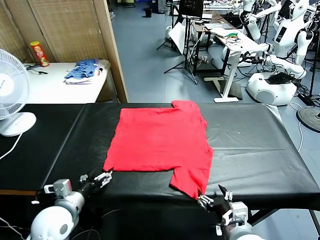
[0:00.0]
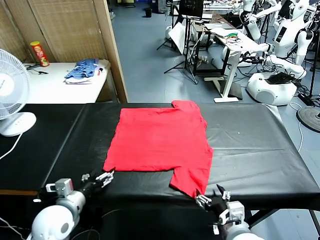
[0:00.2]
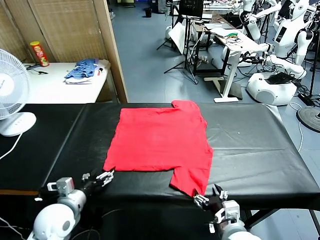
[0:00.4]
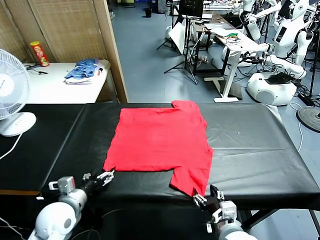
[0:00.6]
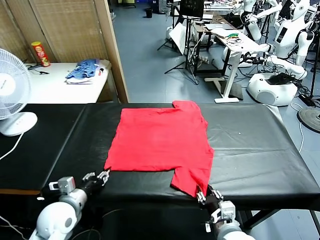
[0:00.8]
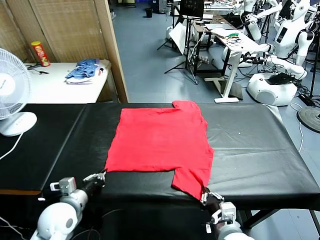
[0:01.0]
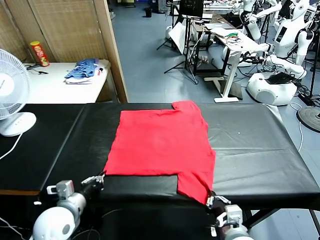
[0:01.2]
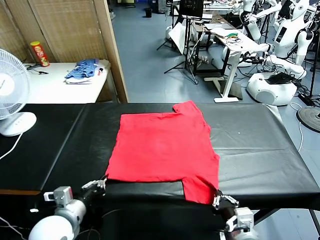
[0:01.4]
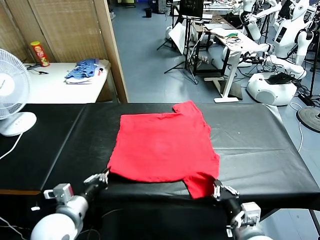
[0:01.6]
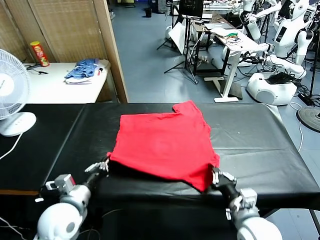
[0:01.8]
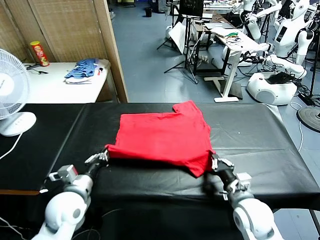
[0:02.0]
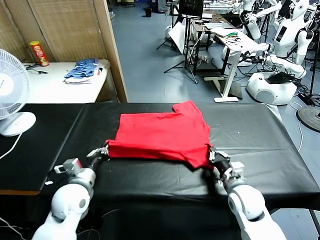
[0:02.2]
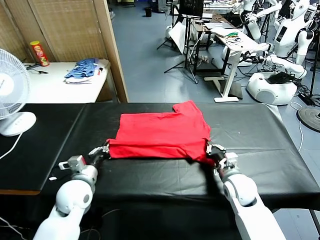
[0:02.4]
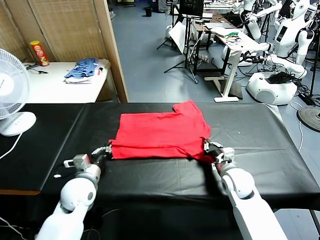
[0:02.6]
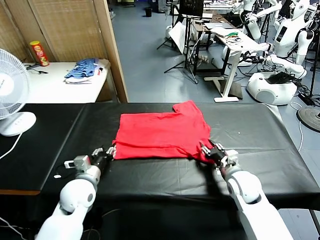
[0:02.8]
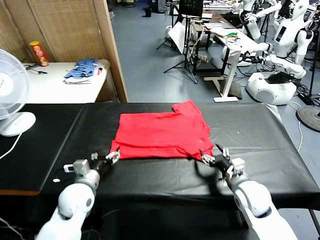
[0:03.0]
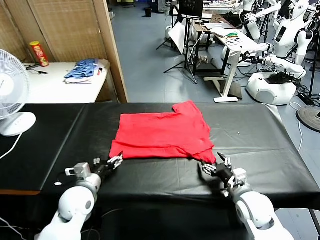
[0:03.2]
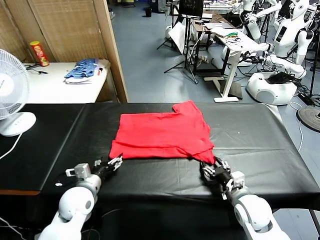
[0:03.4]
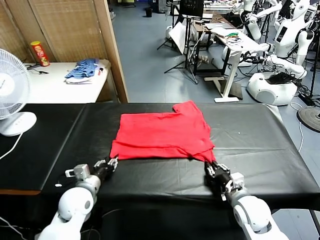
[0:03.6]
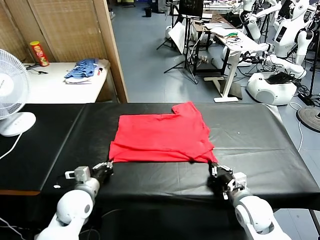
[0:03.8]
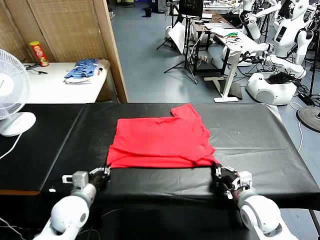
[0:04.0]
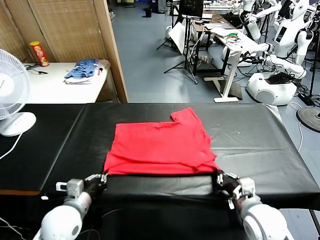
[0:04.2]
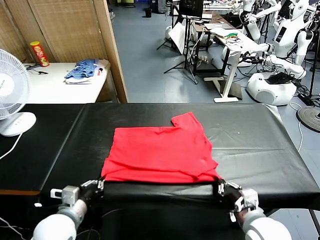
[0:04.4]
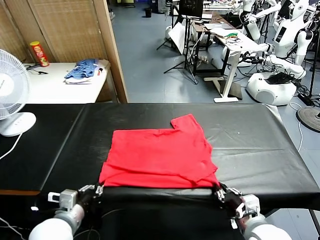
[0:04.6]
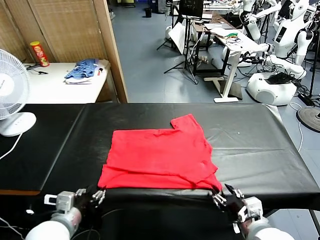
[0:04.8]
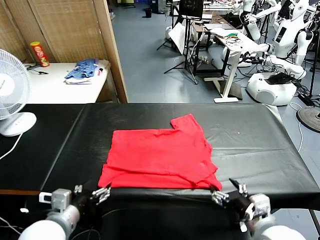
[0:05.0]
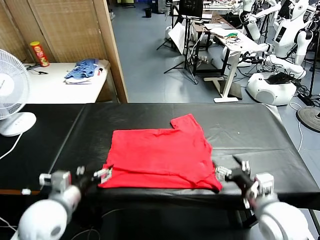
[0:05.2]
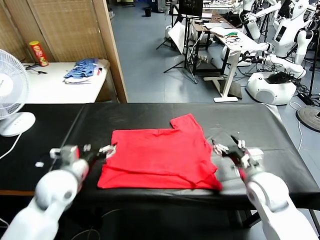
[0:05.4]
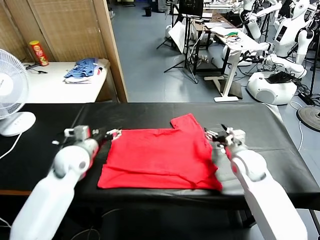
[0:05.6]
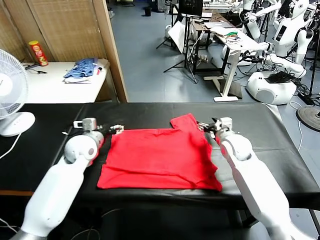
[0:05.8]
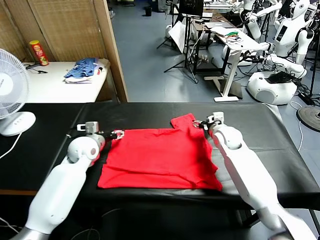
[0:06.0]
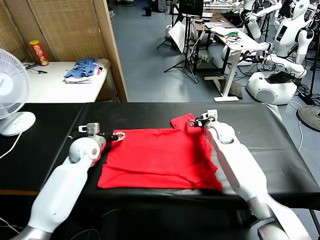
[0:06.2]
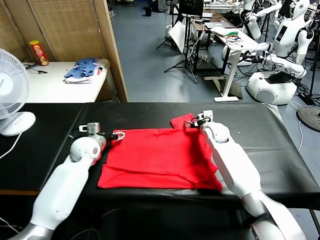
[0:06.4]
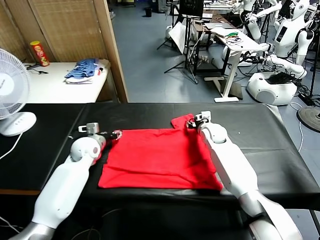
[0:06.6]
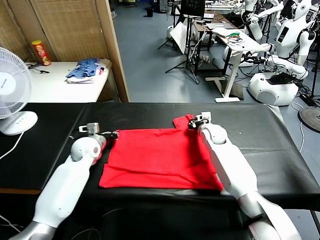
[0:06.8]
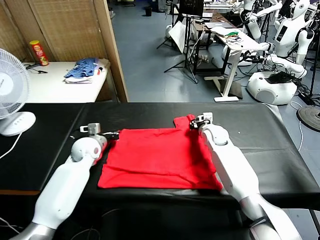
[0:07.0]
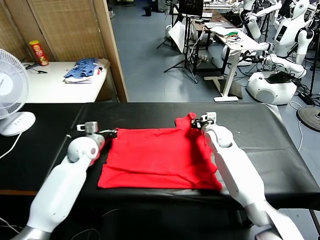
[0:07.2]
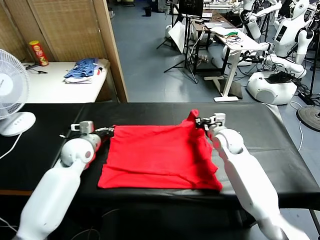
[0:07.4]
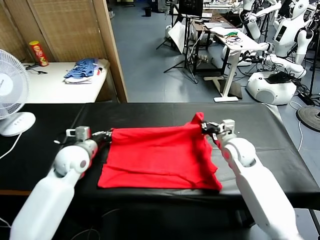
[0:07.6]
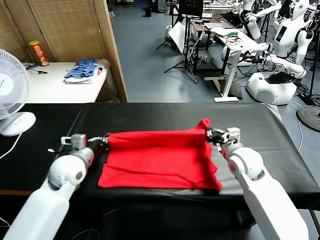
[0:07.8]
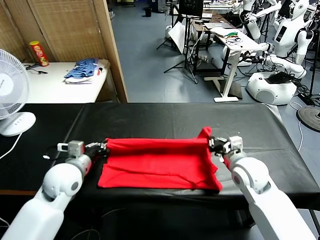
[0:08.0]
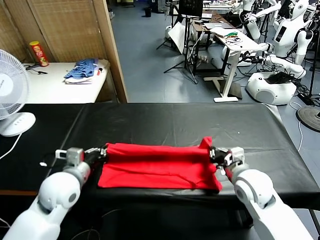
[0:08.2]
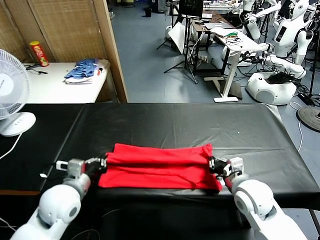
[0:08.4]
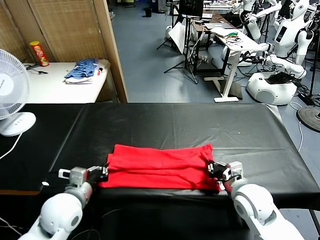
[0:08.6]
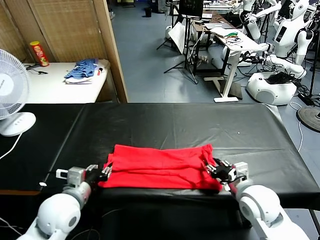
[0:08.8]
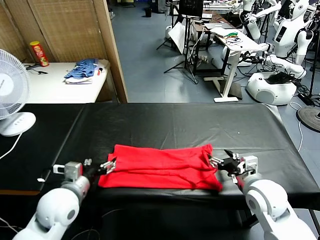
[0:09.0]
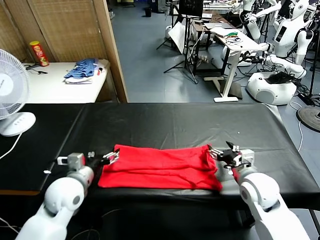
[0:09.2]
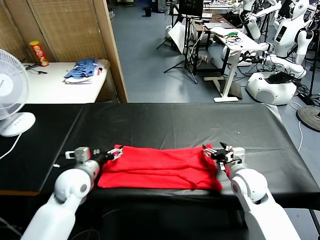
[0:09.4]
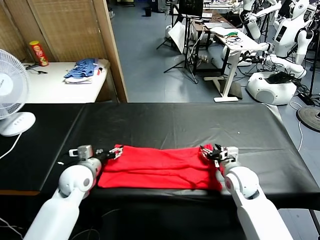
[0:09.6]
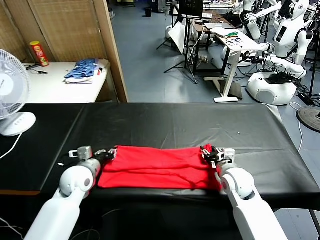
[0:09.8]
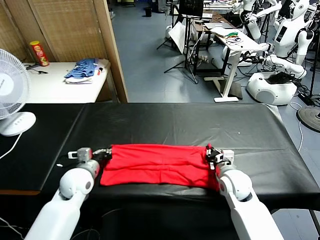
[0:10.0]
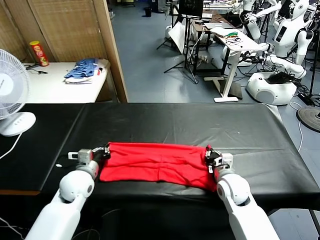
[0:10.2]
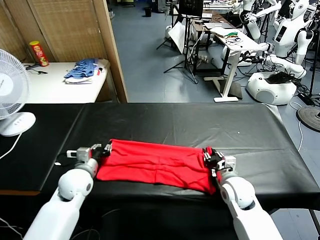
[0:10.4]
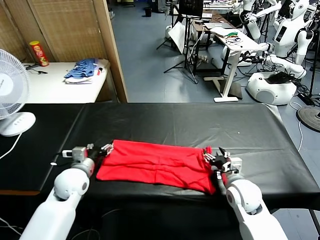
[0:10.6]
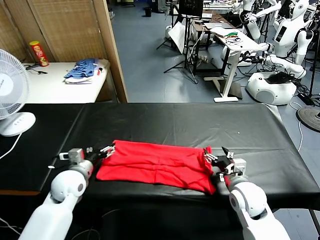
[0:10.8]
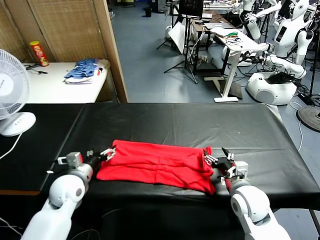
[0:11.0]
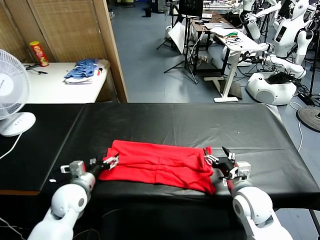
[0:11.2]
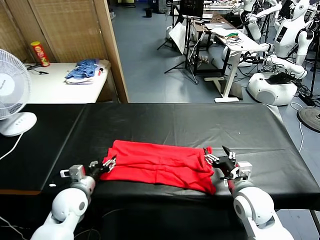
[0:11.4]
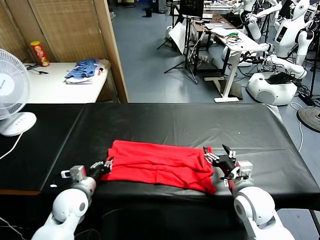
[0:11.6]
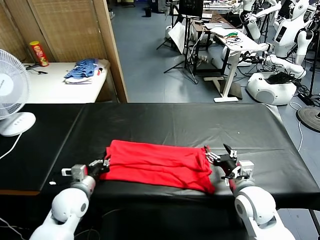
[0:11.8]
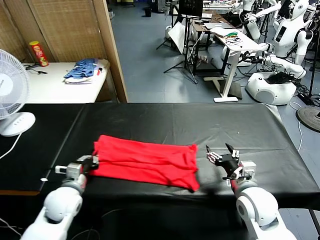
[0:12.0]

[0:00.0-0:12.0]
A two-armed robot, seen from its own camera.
Task of the whole recording: fold and organize the clothes.
Step, 0:00.0 to 0:01.0: use both grippers simultaneously to clamp the lower edge of the clothing fabric.
Step, 0:01.2 to 0:02.8: use both grippers to drag the lower edge of the fabric forward and fold it over the upper edge.
Step, 0:03.0 to 0:04.8: Drag the clothes downward with both gripper.
Step, 0:05.2 to 0:07.0: use both grippers simultaneously to clamp the upper edge of the clothing fabric.
Step, 0:07.2 to 0:09.0: use both grippers to drag the upper edge of the fabric backward and fold it over the lower edge.
Step, 0:09.2 to 0:11.6: use the left gripper to clamp the left edge of the fabric.
0:01.6 to 0:03.0: The right gripper reaches approximately 10 cm forward, then returns, and opens up. Meanwhile the left gripper travels forward and downward by roughly 10 cm, and opens up.
0:03.0 to 0:04.4: The right gripper heads backward and upward, covering about 10 cm, and closes up; the left gripper shifts some 10 cm backward, and closes up.
0:04.4 to 0:06.0: The grippers both shift forward by some 30 cm. The right gripper opens up; the left gripper opens its fingers.
0:06.0 to 0:07.6: The left gripper moves backward, about 10 cm, and closes up. The right gripper heads backward, covering about 15 cm, and closes its fingers.
0:07.6 to 0:09.0: Both grippers move backward, approximately 10 cm. The left gripper opens up. The right gripper opens its fingers.
0:09.0 to 0:10.4: The left gripper heads forward and downward, covering approximately 10 cm, and closes up. The right gripper moves downward, approximately 5 cm, and closes, then reopens.
0:10.4 to 0:12.0: The left gripper moves backward, some 5 cm, and closes its fingers. Meanwhile the right gripper heads upward and backward, covering roughly 10 cm.

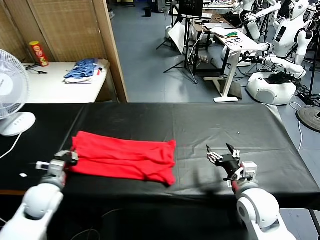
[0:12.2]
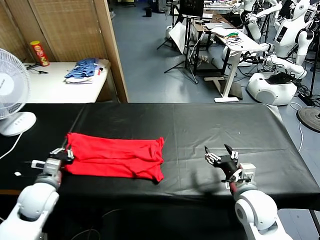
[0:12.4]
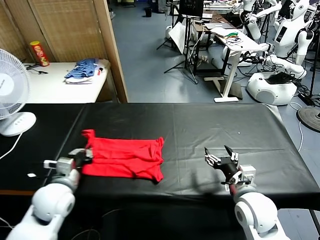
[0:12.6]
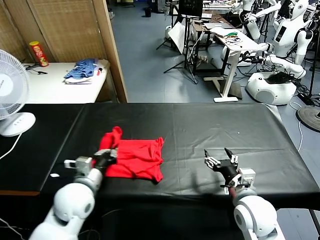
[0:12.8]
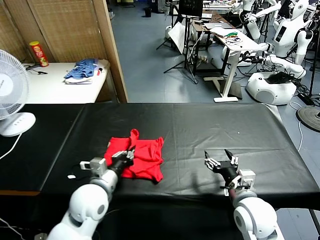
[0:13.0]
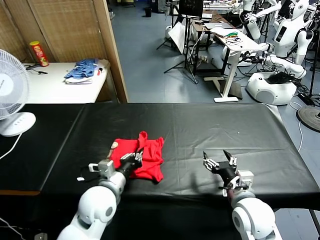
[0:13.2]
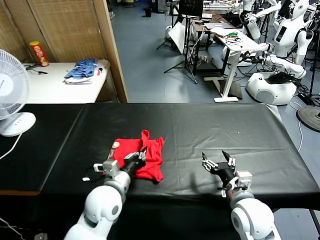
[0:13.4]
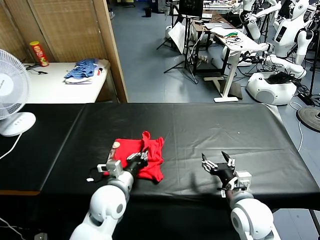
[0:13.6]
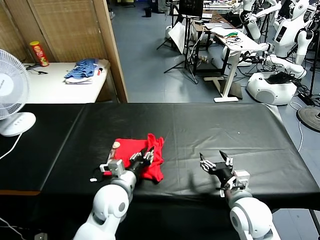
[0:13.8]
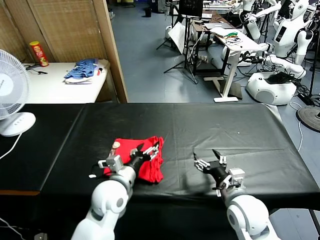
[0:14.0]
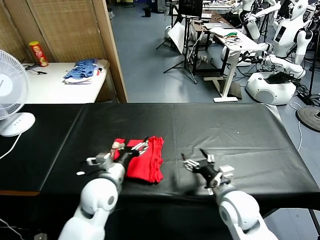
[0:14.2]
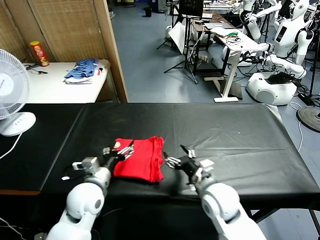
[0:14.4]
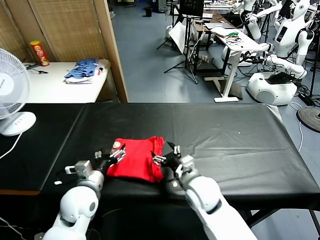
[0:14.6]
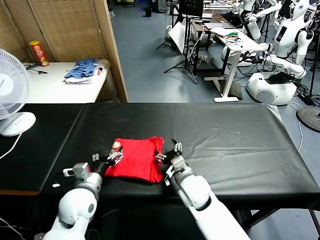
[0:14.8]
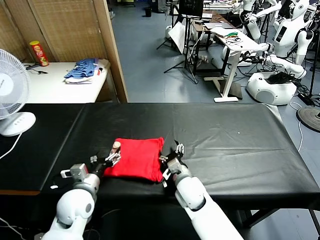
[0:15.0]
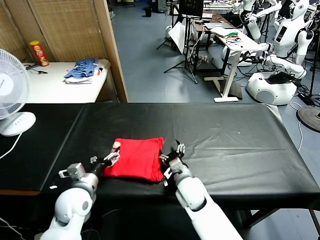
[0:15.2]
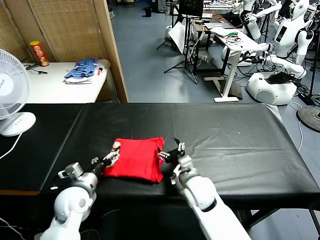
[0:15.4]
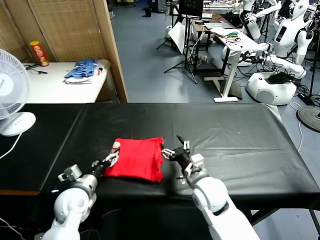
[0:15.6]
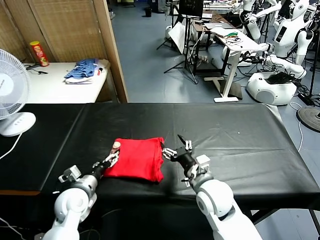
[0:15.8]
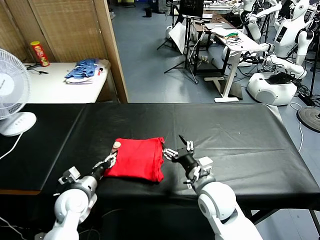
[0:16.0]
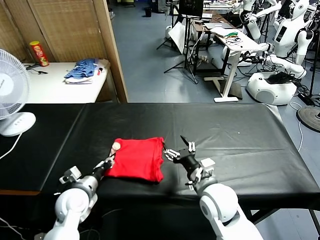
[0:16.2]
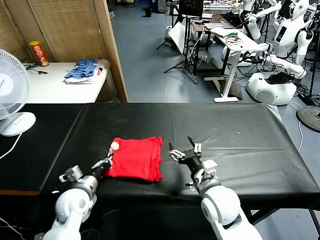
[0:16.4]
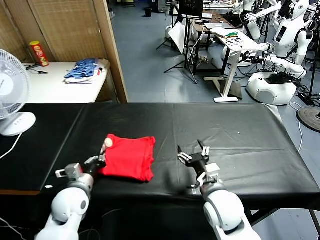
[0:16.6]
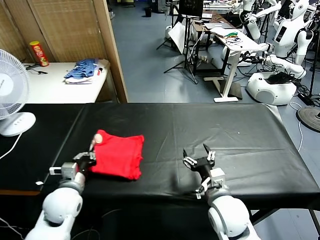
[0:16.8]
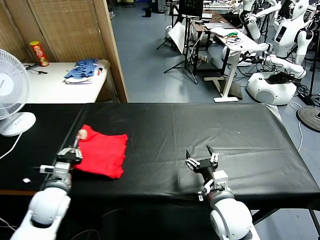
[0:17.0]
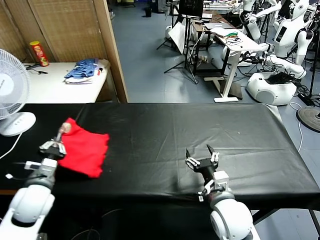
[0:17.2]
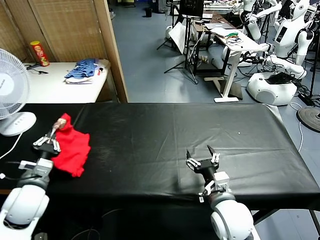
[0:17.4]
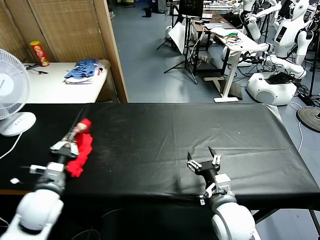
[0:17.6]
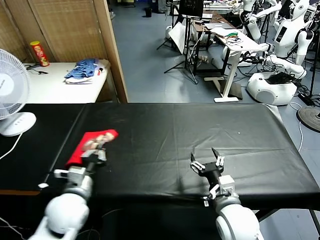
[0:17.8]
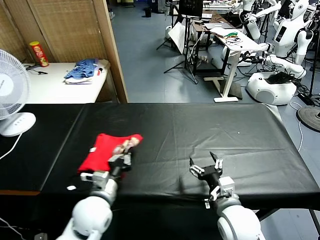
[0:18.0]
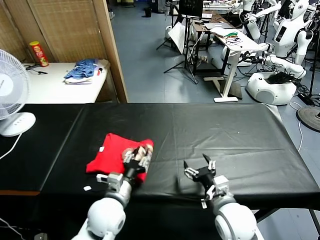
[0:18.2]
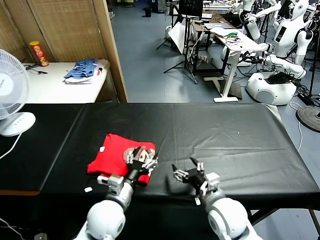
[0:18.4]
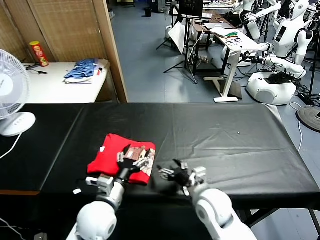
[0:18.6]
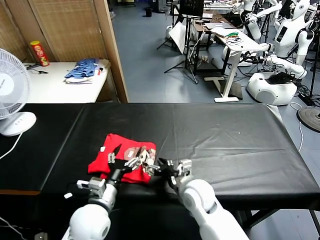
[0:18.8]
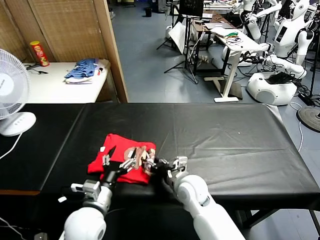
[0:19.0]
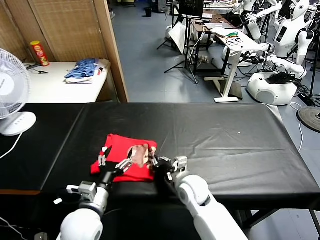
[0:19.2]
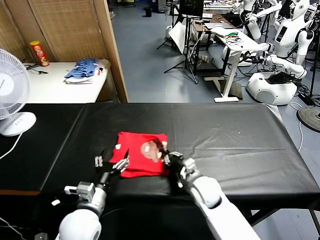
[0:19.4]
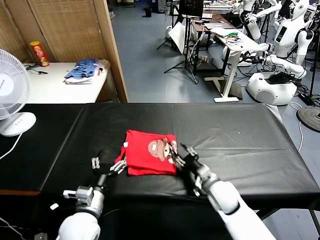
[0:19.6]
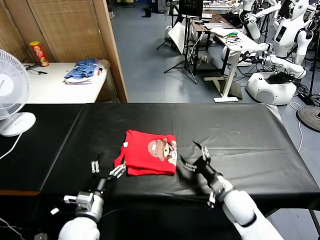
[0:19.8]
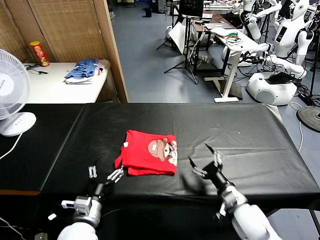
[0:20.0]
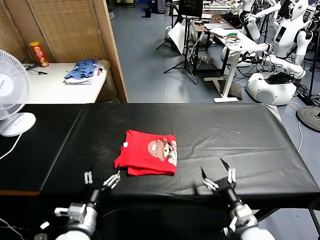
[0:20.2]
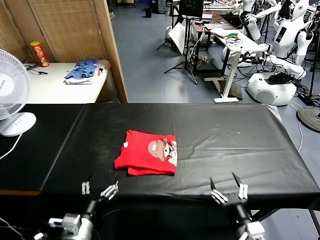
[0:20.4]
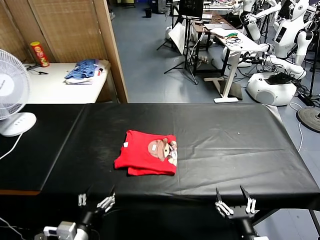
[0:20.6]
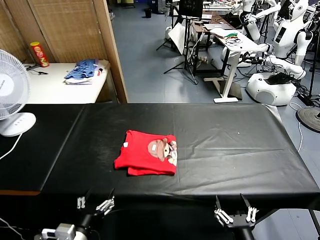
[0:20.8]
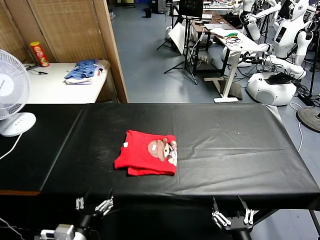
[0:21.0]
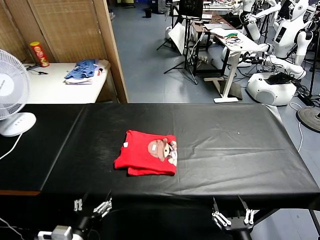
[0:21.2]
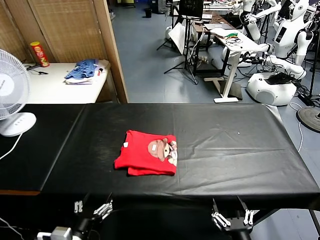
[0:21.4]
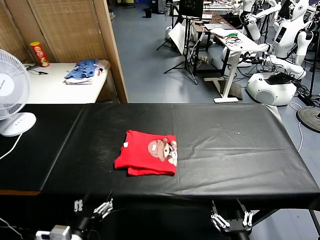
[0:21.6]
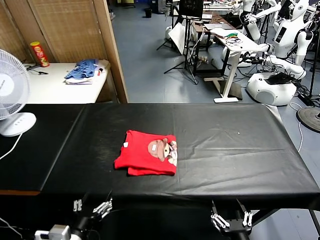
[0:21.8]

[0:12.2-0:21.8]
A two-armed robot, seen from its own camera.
Task of the whole recording: fold and organize the clothes.
Step, 0:12.2 to 0:13.8: use the left gripper to drag the left edge of the fabric to the left and folds it over the right edge.
Step, 0:14.2 to 0:18.2: Flip the folded clothes over with left gripper.
Step, 0:18.4 to 0:19.6: Drag the clothes to the center of the table.
0:12.2 to 0:13.8: The left gripper goes about 25 cm to the right, and opens its fingers.
0:13.8 to 0:15.4: The left gripper is displaced to the left by some 15 cm, and opens. The right gripper moves to the left and forward, roughly 15 cm.
0:15.4 to 0:17.0: The right gripper travels backward and to the right by approximately 10 cm, while the left gripper ends up roughly 5 cm from where it was, and closes its fingers.
0:17.0 to 0:18.6: The right gripper changes place by about 5 cm. Meanwhile the left gripper heads to the right, covering about 15 cm, and opens its fingers.
0:18.6 to 0:20.2: The right gripper travels to the right and backward by some 15 cm, and closes and opens again, while the left gripper moves backward and to the left, approximately 10 cm.
0:20.2 to 0:21.8: The left gripper heads backward, covering some 5 cm; the right gripper heads backward and upward, covering some 15 cm.
